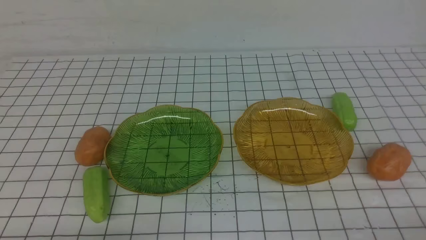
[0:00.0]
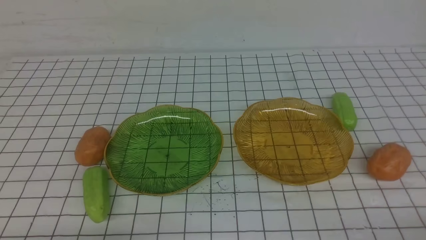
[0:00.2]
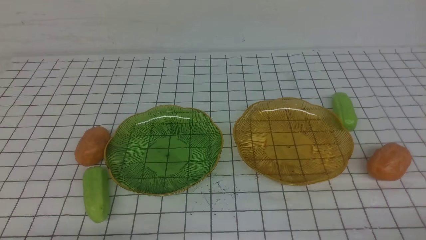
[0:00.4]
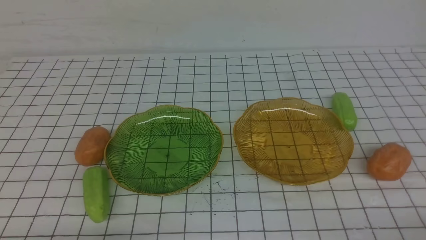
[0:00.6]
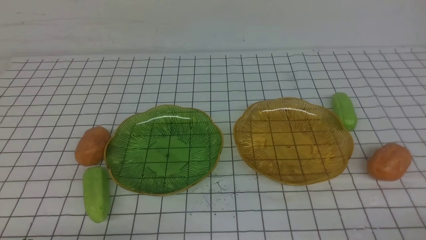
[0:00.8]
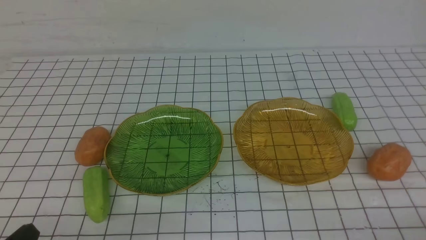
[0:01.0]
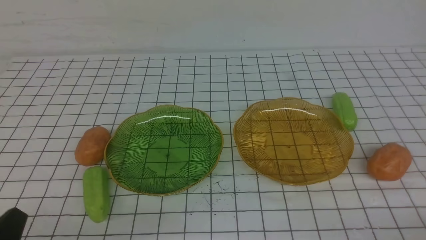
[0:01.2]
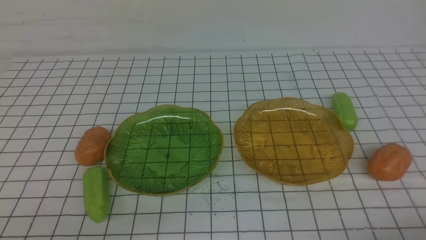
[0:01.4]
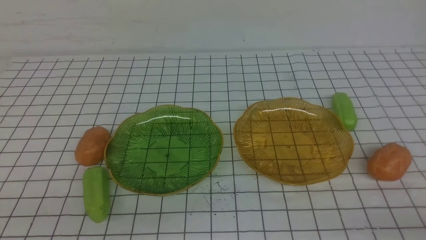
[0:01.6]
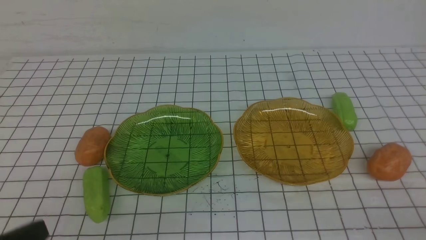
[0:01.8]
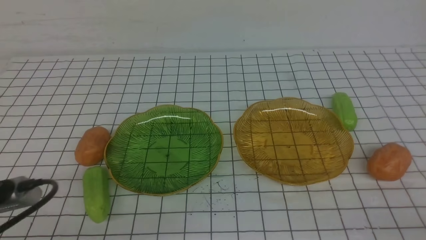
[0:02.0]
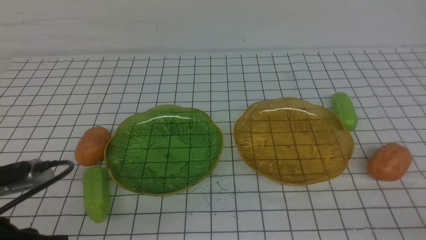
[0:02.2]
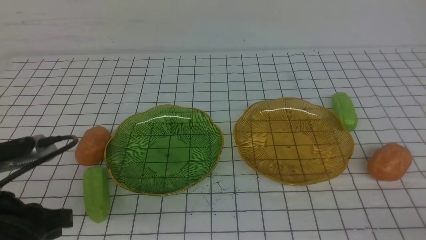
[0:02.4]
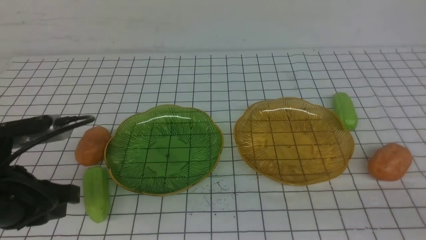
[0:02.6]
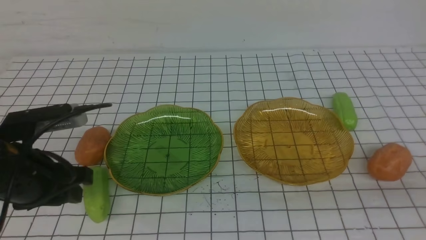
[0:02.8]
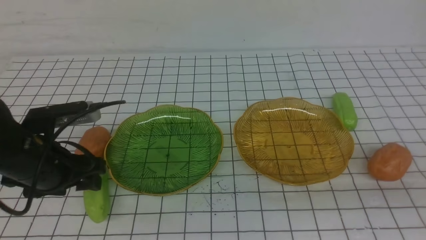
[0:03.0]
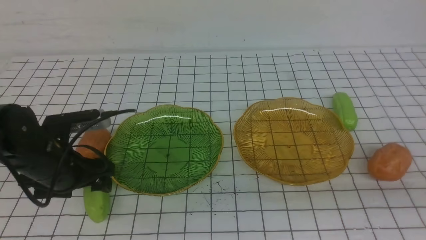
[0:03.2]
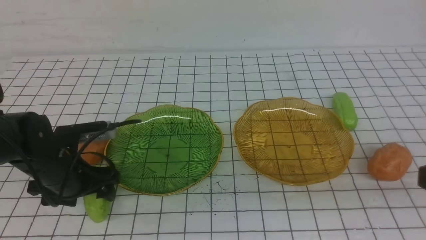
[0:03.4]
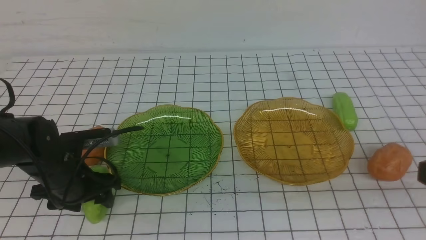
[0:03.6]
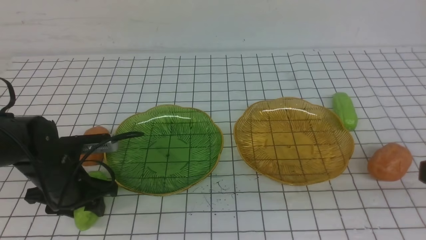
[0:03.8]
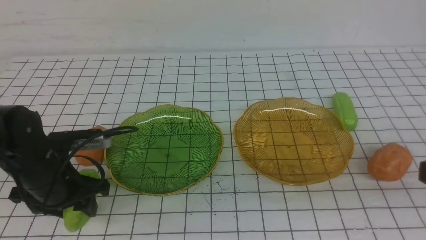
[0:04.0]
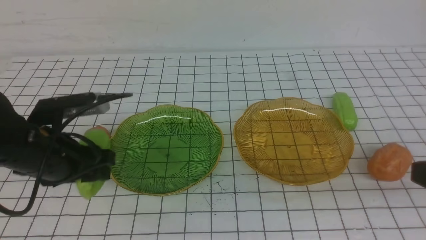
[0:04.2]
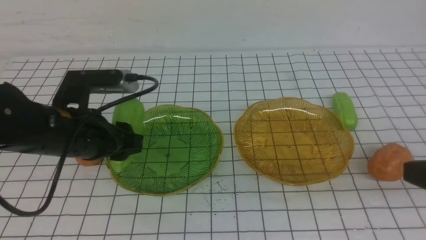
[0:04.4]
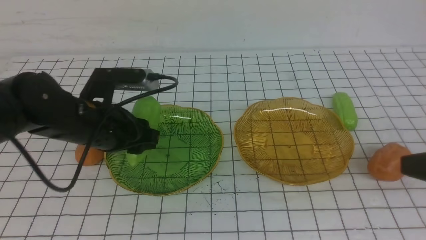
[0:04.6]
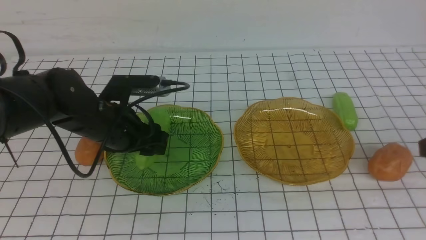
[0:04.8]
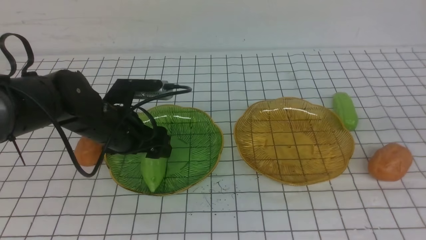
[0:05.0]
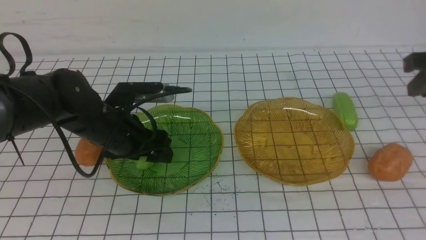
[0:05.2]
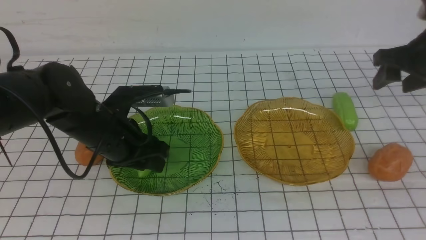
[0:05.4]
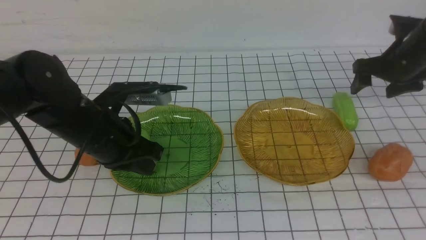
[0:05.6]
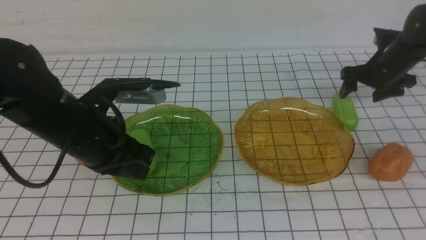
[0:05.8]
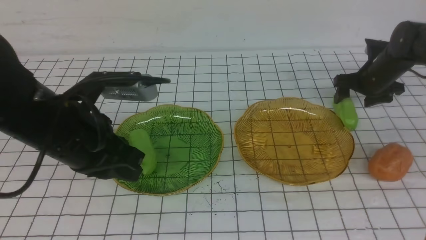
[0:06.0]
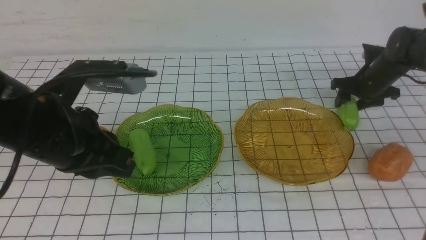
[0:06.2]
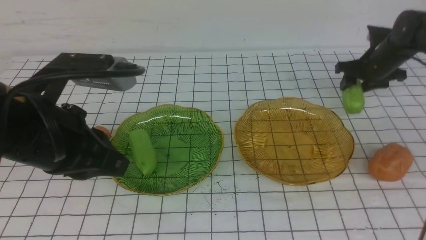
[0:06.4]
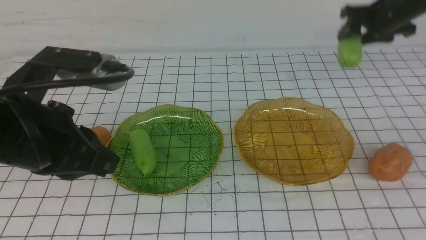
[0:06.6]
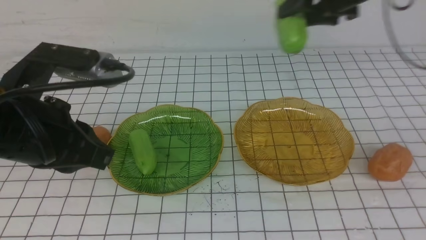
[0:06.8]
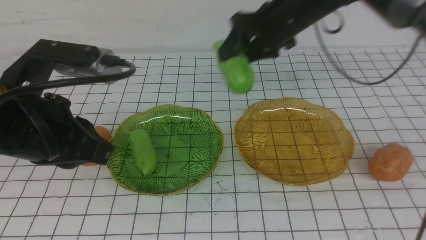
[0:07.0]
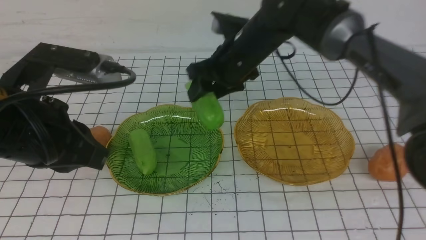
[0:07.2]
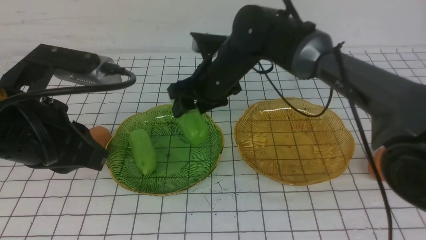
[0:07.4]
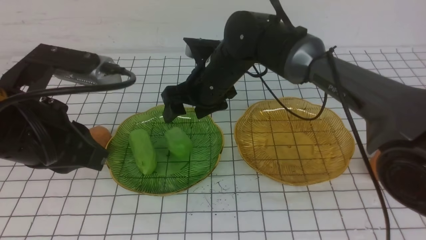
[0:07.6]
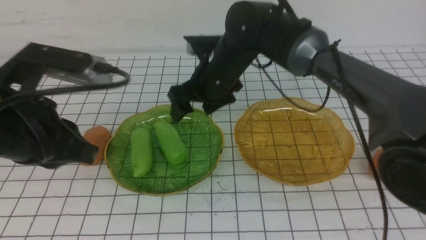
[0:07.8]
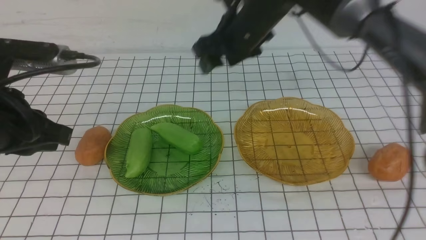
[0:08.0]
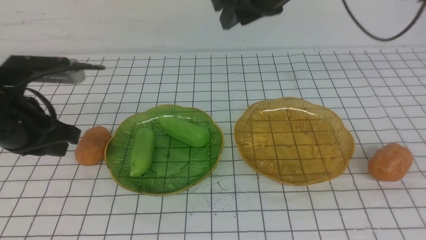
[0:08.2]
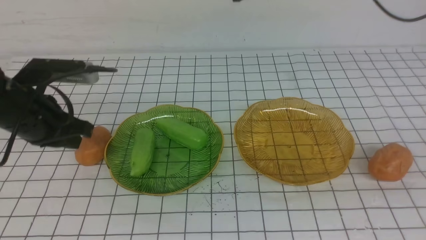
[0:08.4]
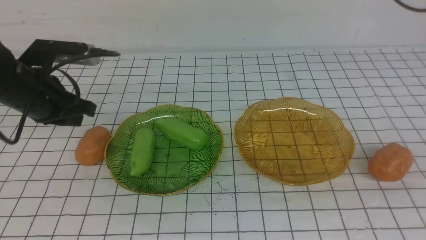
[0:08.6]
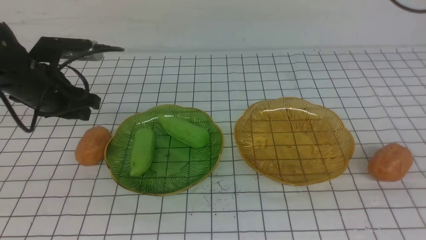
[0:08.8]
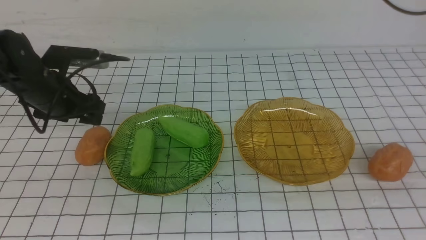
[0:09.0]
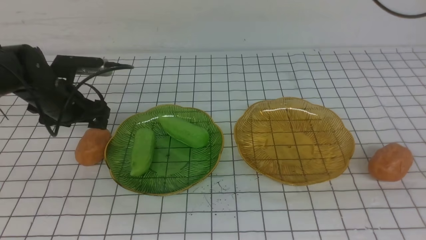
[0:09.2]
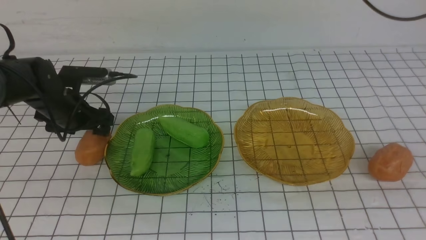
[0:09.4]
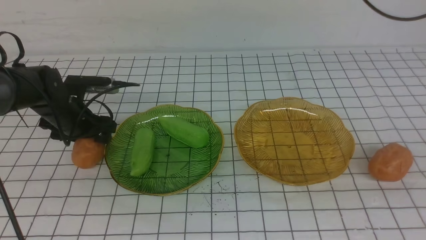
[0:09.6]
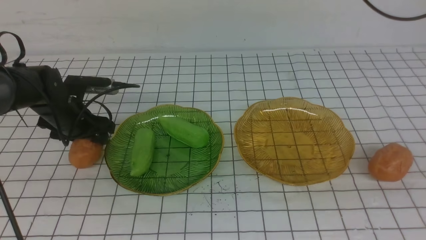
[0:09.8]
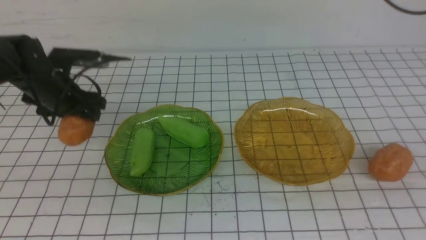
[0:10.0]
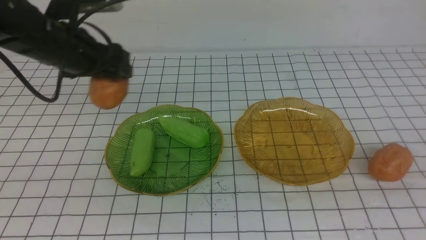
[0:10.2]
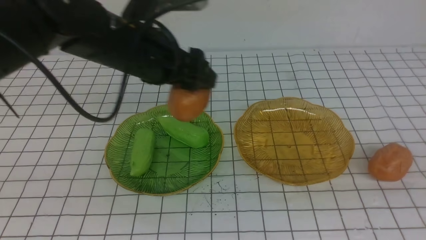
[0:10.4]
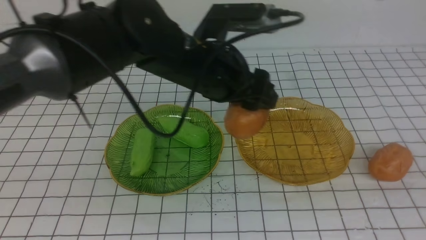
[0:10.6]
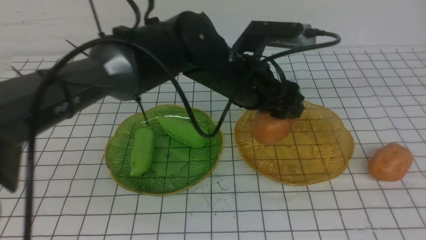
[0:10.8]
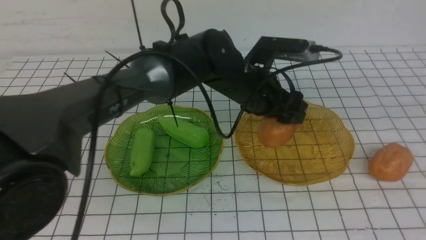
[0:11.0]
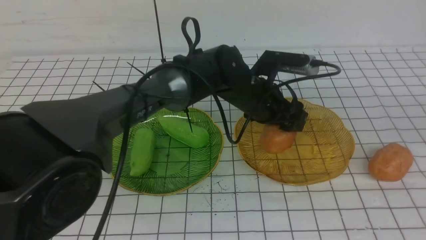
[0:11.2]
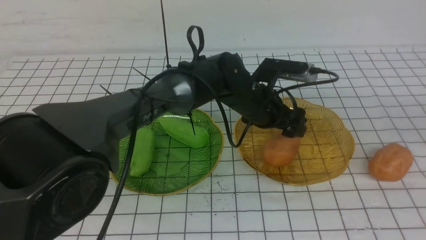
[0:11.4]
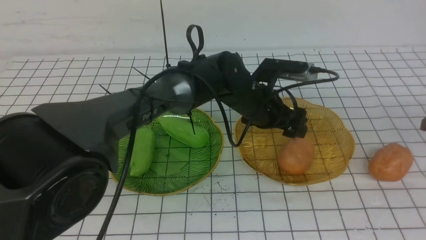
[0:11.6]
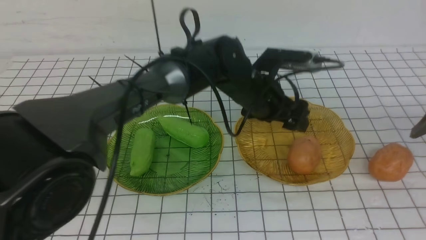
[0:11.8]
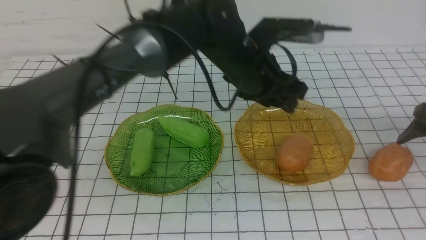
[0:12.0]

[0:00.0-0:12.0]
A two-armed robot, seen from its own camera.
Step, 0.0 to 5.8 s: use the left arm to grab a chayote and put it into the left plate.
Step, 6.0 to 7.4 s: Grab the chayote with your right arm and put it on the left plate.
Step, 7.6 to 11.4 s: Grab a potato with your left arm and put it on the right plate.
1.6 to 3.0 s: The left gripper moves forward, roughly 20 cm, and opens its fingers. Meanwhile the right gripper travels upward by about 10 cm.
3.0 to 4.4 s: The right gripper goes approximately 5 cm forward; the left gripper moves some 5 cm downward and comes back.
4.4 to 6.0 s: The left gripper travels upward by roughly 5 cm, and closes its fingers. Meanwhile the right gripper is displaced forward and downward by roughly 40 cm, and opens.
6.0 to 7.6 s: The right gripper goes some 30 cm to the left. Meanwhile the left gripper changes place by some 5 cm.
7.6 to 9.0 s: The right gripper goes some 25 cm upward and to the right, and closes. Meanwhile the left gripper travels forward and downward by roughly 20 cm, and opens its fingers.
9.0 to 10.4 s: The right gripper is displaced to the right by roughly 10 cm, while the left gripper shifts some 20 cm to the right and upward.
10.4 to 12.0 s: The right gripper moves downward and to the right, approximately 30 cm, and opens its fingers; the left gripper is displaced to the right by about 10 cm.

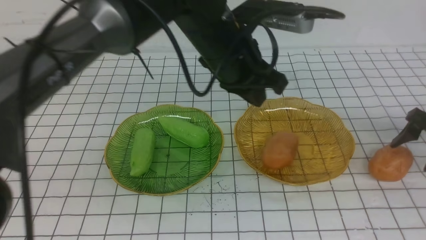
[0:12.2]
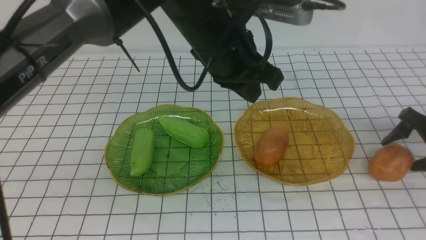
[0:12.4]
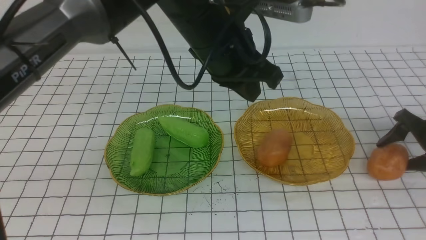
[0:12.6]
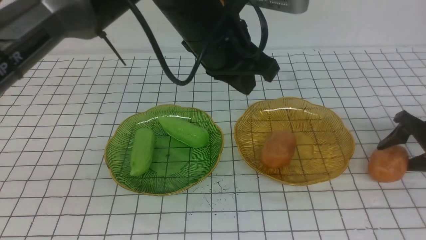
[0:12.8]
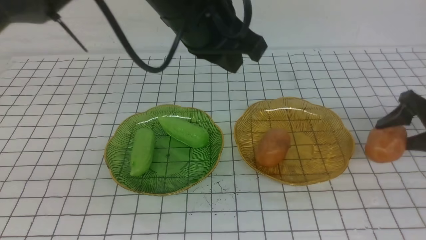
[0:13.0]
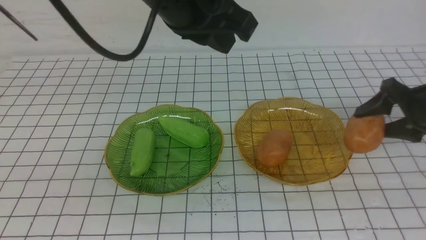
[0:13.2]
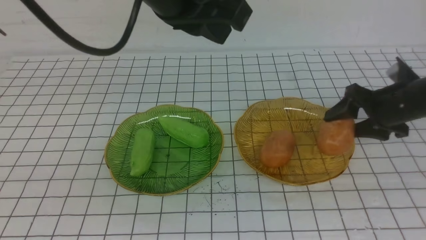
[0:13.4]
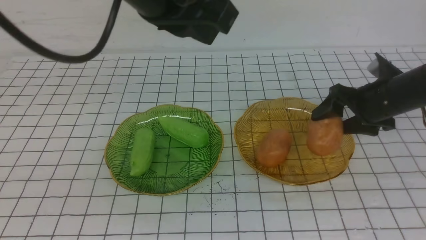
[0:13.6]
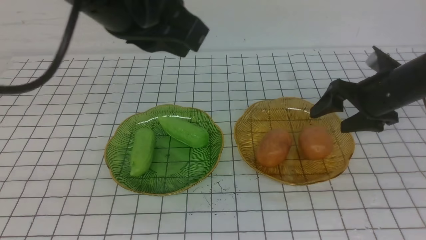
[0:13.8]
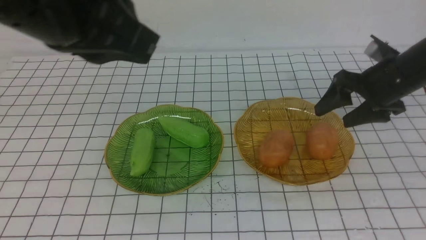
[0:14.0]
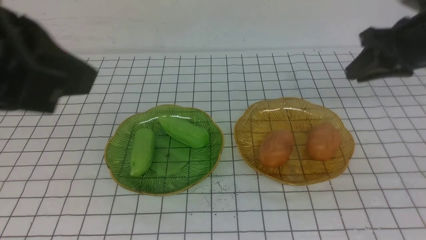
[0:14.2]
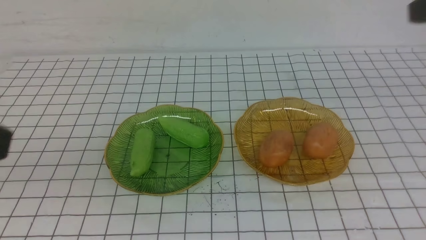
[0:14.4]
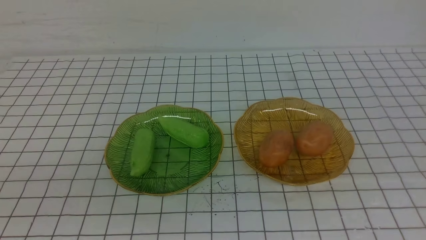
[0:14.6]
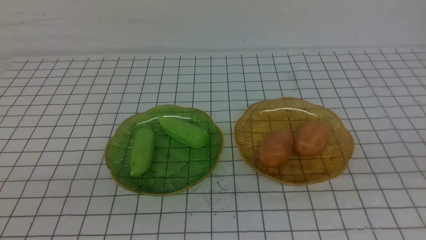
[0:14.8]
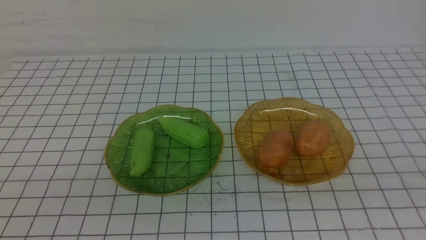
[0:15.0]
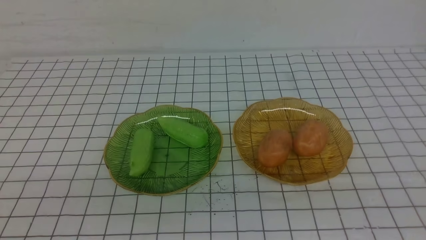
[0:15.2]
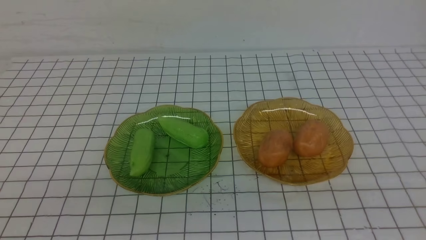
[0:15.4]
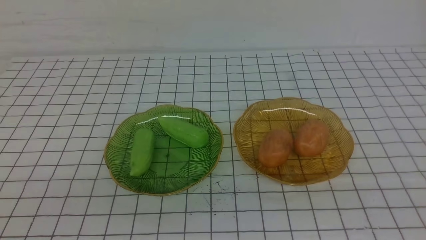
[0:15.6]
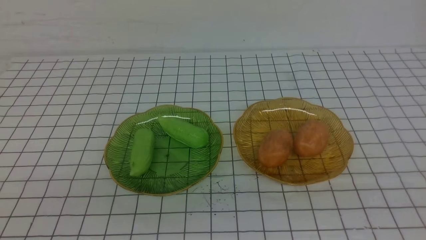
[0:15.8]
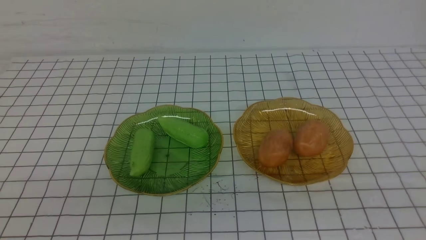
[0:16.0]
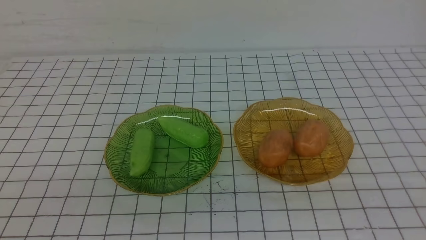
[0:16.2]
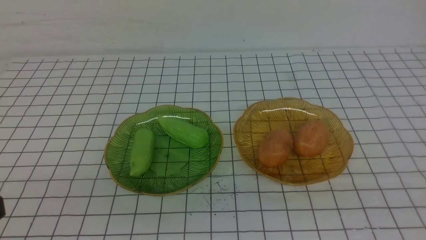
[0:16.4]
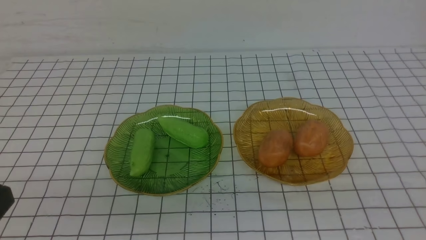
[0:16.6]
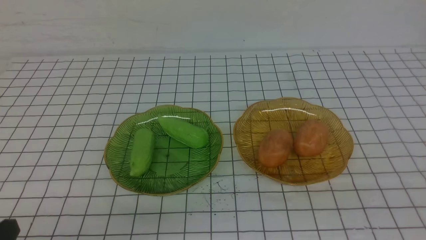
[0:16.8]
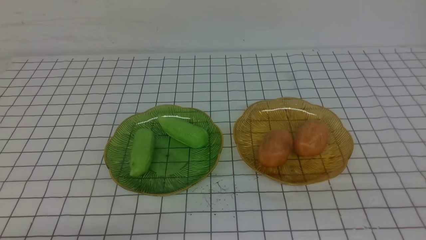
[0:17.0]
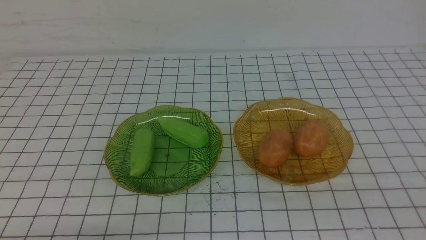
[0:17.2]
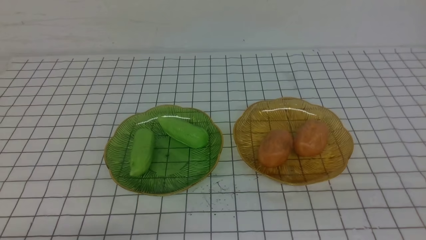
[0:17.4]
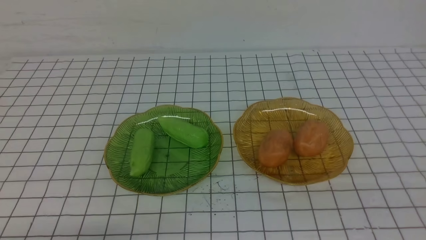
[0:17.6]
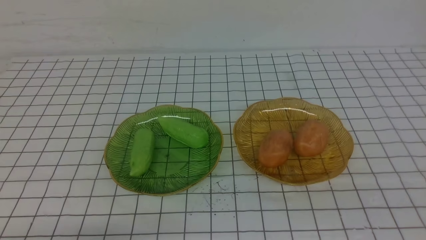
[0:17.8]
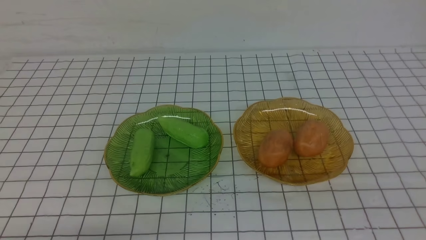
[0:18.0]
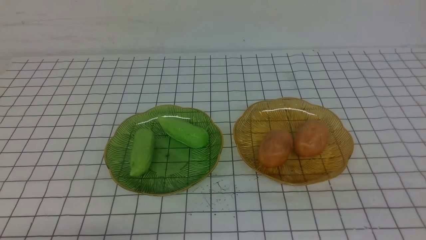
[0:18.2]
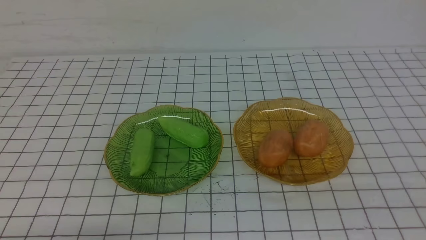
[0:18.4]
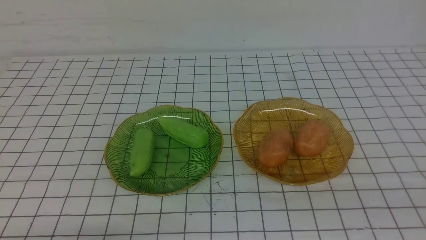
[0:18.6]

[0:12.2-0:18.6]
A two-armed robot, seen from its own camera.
Step, 12.2 to 13.8 s: Grab a potato with your right arm and put it on the right plate.
12.2 to 13.8 s: The right gripper heads to the left and upward, covering about 15 cm. The left gripper moves upward, backward and to the left, roughly 20 cm.
13.8 to 15.4 s: The right gripper heads backward, covering about 40 cm, and closes. Meanwhile the left gripper shifts some 25 cm backward, to the left and downward.
